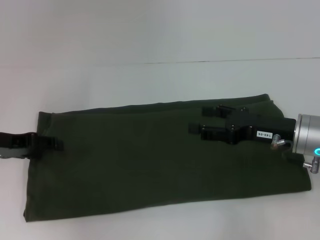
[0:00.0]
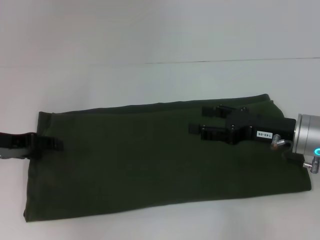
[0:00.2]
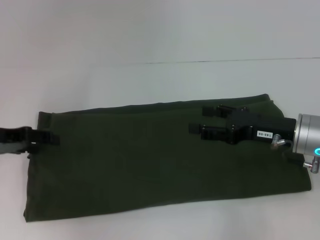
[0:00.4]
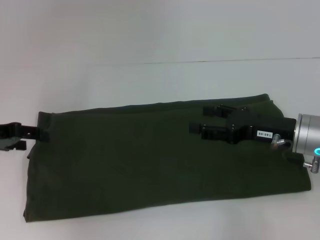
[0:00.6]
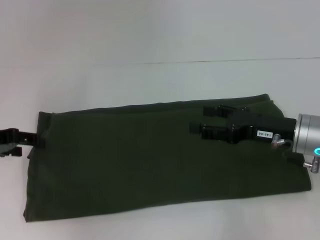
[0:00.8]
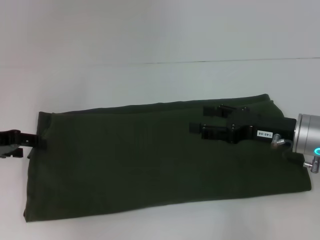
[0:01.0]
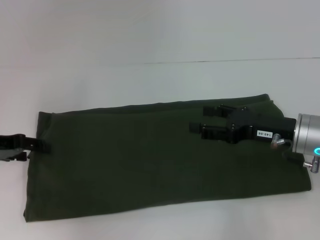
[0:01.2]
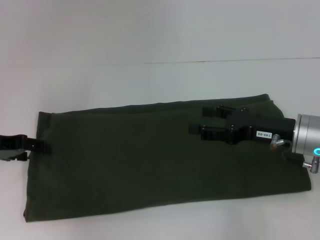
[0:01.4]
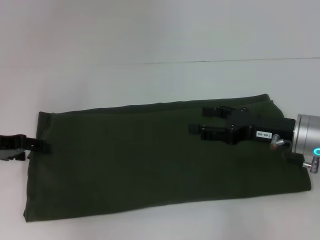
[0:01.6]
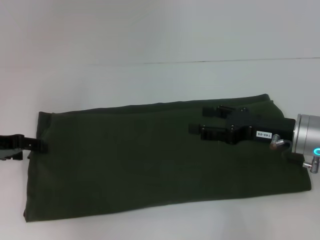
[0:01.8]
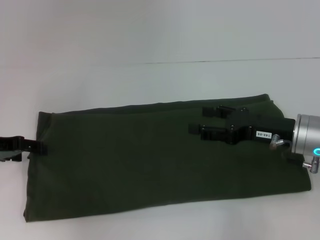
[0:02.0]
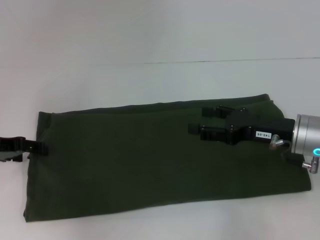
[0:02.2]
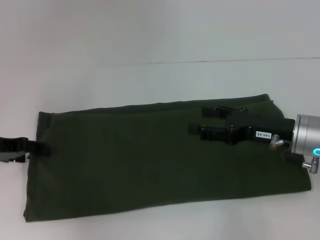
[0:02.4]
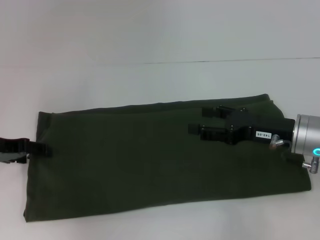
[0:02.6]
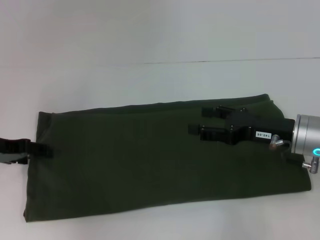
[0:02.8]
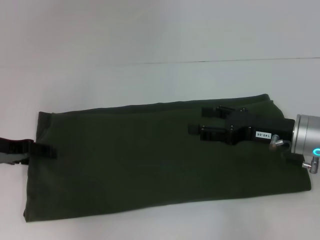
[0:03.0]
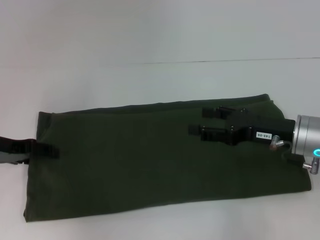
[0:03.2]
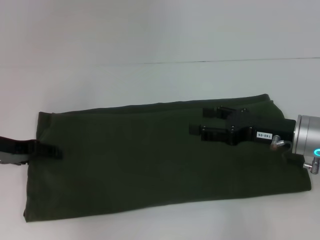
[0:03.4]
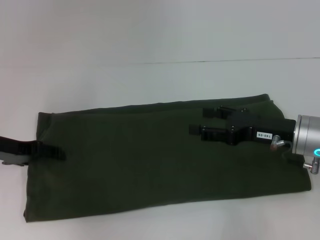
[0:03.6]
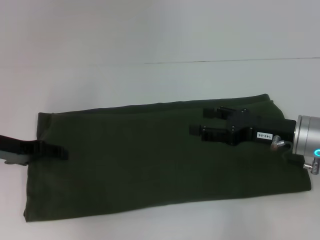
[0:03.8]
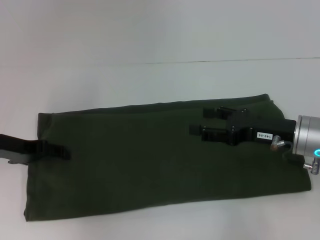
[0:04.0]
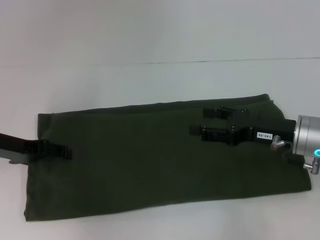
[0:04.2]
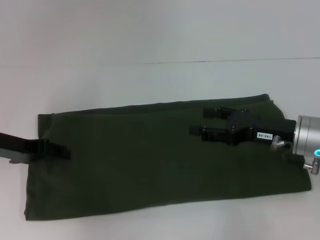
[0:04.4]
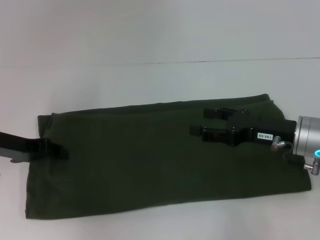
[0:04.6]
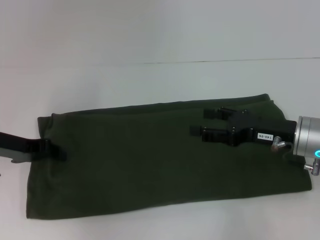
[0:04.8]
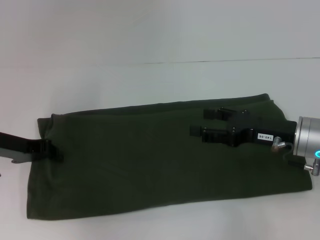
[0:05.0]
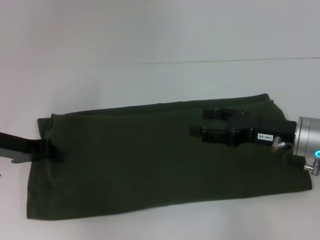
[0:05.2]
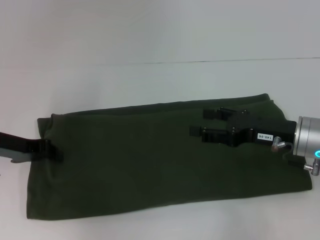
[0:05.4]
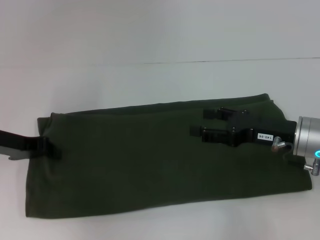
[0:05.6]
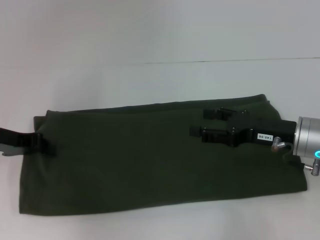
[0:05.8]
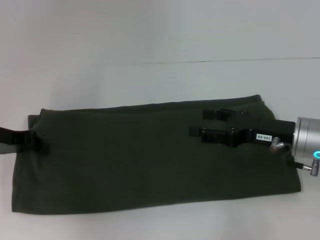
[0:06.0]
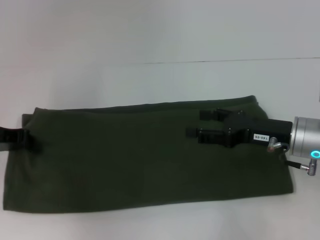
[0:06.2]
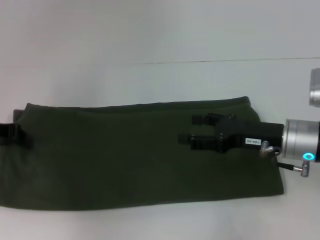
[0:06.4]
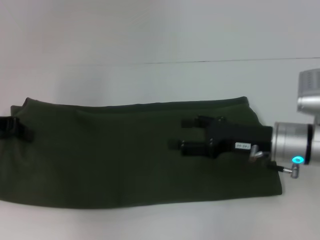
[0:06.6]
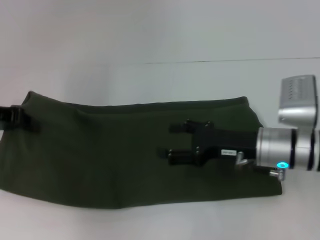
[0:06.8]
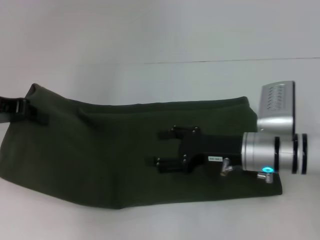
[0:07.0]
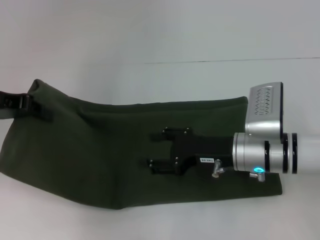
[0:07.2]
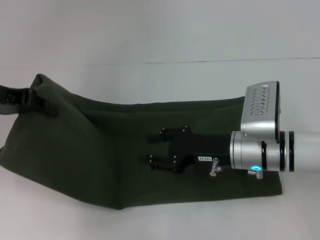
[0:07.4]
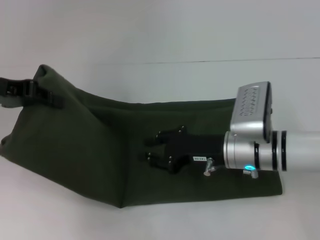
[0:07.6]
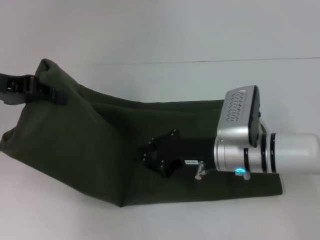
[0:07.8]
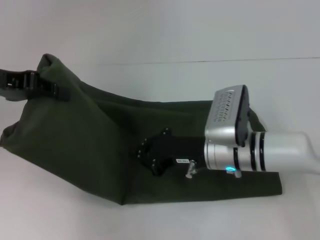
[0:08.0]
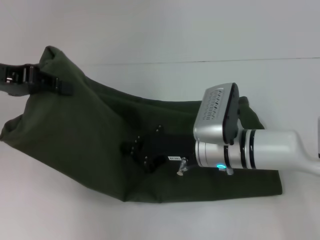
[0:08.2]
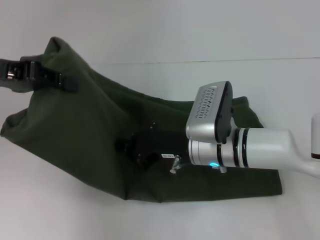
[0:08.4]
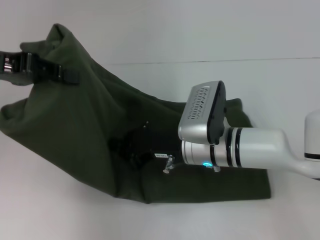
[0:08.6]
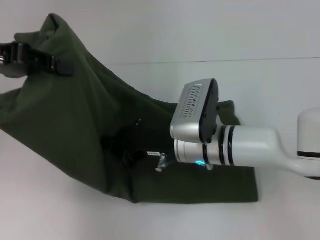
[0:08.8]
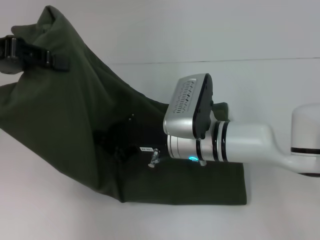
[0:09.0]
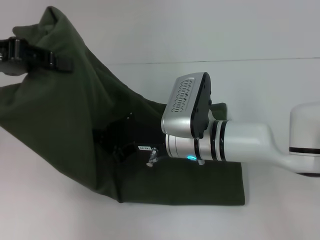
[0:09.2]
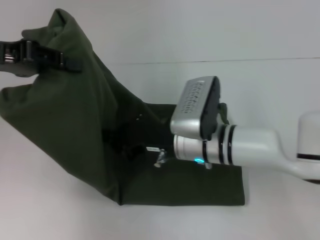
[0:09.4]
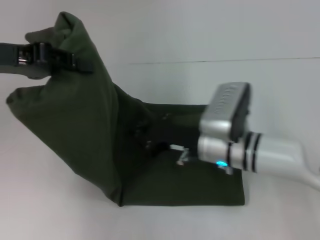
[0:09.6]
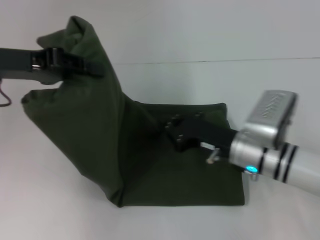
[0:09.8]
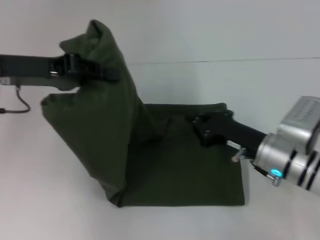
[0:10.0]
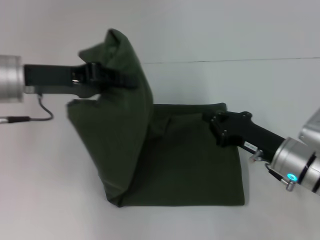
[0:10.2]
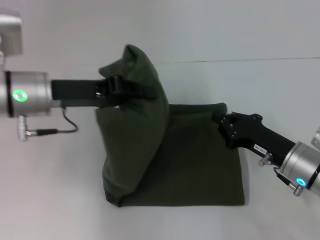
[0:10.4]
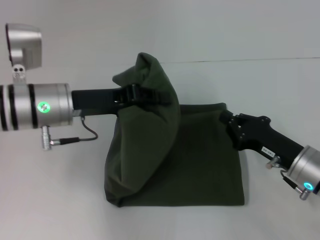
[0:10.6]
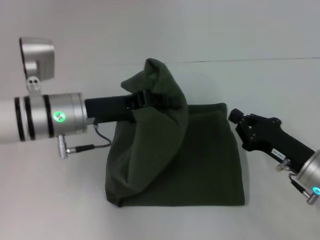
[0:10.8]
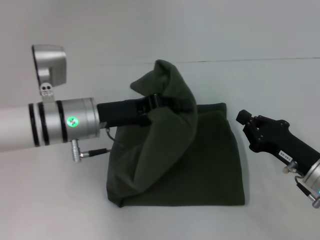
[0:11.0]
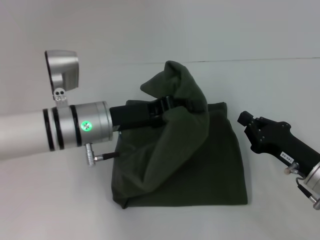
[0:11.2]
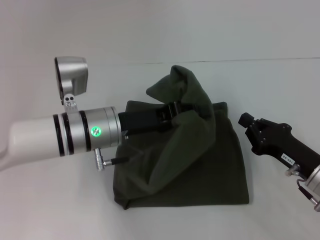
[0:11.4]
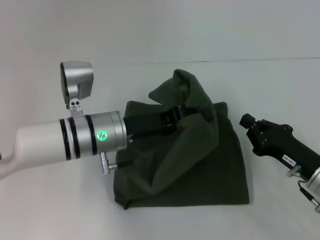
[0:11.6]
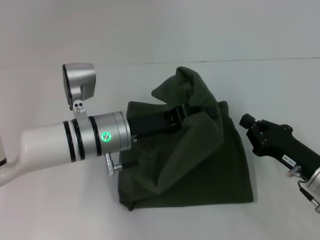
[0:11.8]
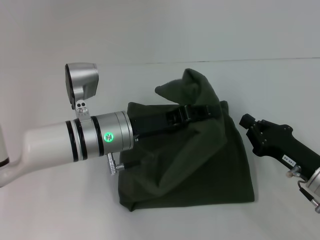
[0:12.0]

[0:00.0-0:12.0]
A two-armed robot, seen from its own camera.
0:01.6 to 0:03.0: Both grippers stay put.
0:03.0 to 0:04.4: The grippers move only a little.
0:04.4 to 0:06.0: The left gripper closes its fingers.
0:06.0 to 0:07.6: The right gripper is displaced to the left by about 10 cm. Meanwhile the left gripper shifts approximately 10 cm upward.
0:07.6 to 0:09.0: The right gripper is displaced to the left by approximately 10 cm, and closes its fingers; the left gripper travels upward by approximately 5 cm.
0:09.0 to 0:10.4: The right gripper moves to the right, about 15 cm. The left gripper is displaced to the right and downward by about 15 cm.
0:10.4 to 0:12.0: The left gripper goes about 10 cm to the right and downward.

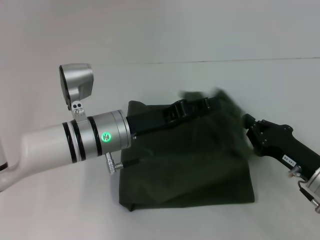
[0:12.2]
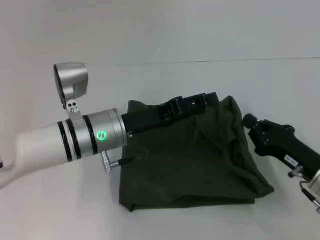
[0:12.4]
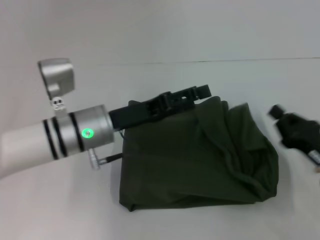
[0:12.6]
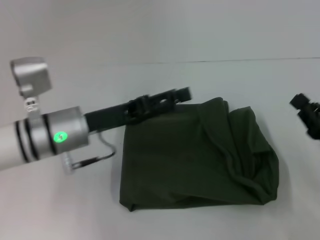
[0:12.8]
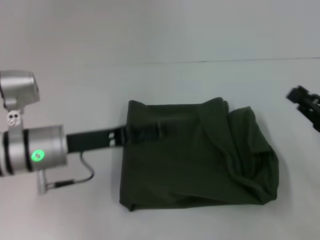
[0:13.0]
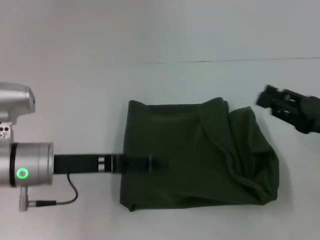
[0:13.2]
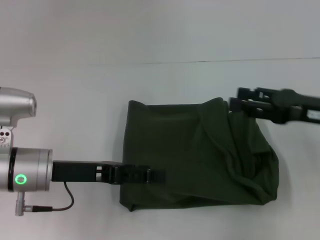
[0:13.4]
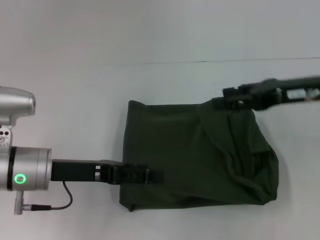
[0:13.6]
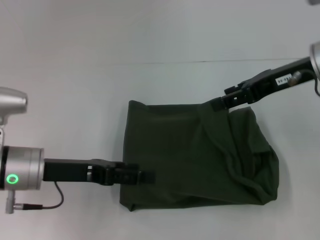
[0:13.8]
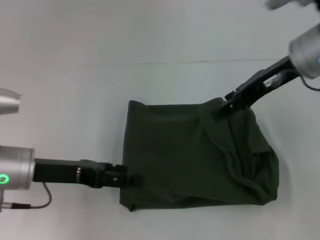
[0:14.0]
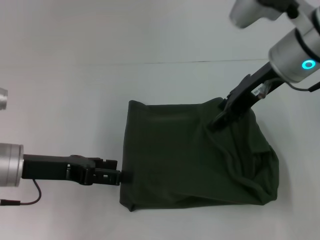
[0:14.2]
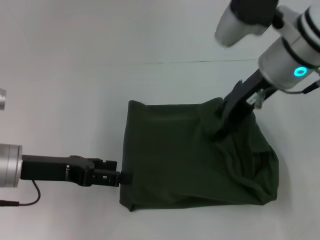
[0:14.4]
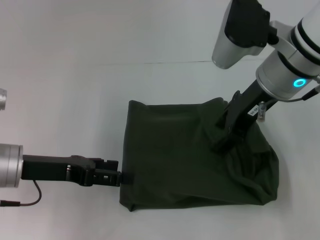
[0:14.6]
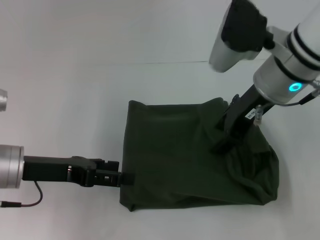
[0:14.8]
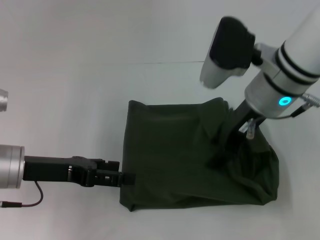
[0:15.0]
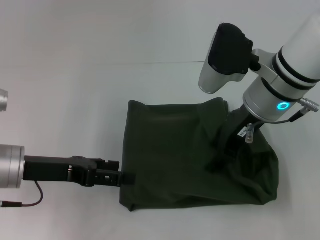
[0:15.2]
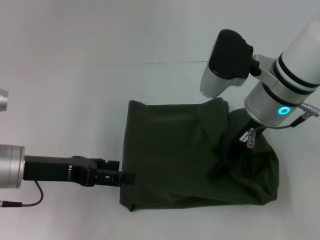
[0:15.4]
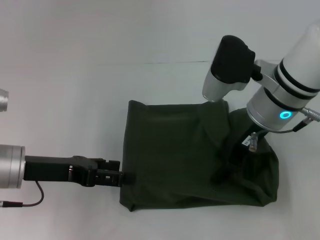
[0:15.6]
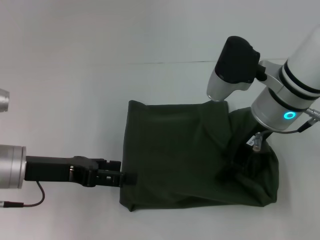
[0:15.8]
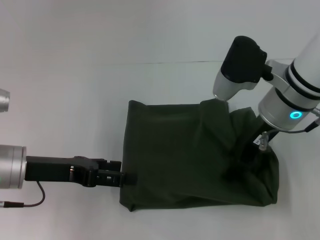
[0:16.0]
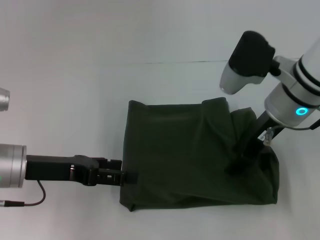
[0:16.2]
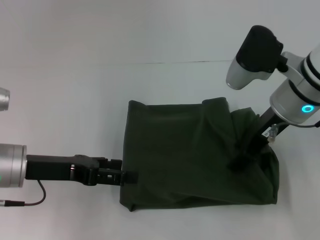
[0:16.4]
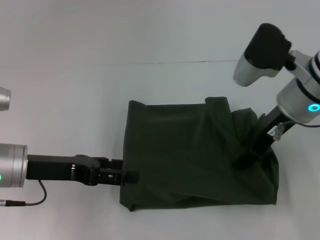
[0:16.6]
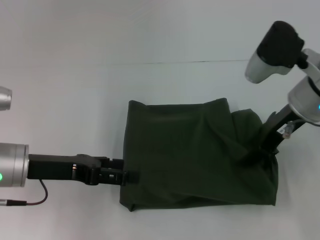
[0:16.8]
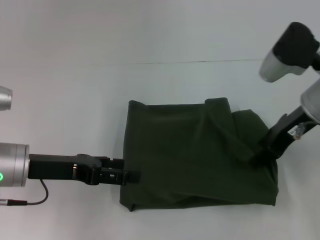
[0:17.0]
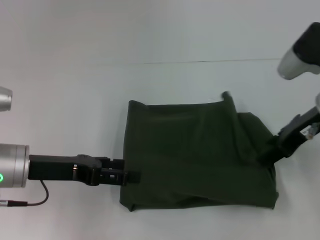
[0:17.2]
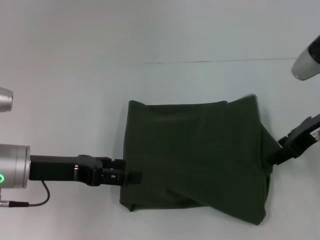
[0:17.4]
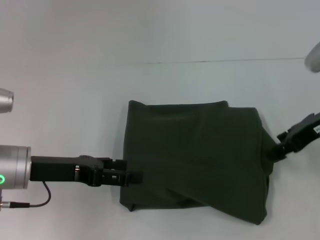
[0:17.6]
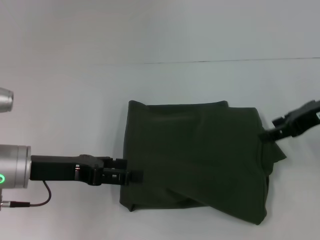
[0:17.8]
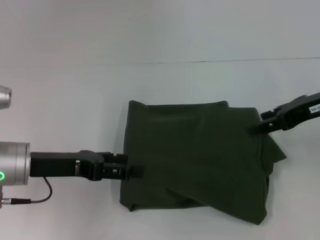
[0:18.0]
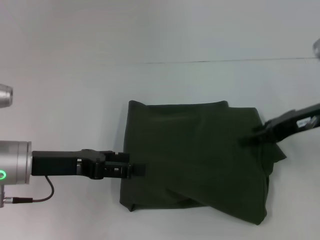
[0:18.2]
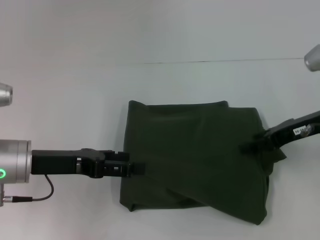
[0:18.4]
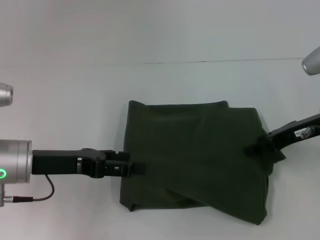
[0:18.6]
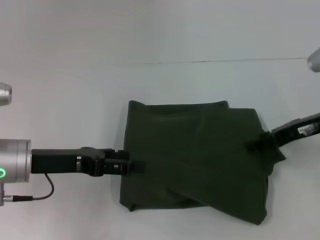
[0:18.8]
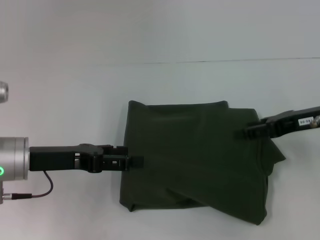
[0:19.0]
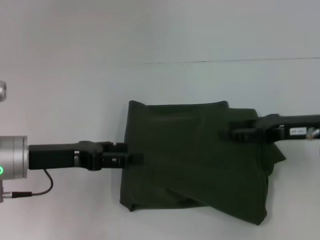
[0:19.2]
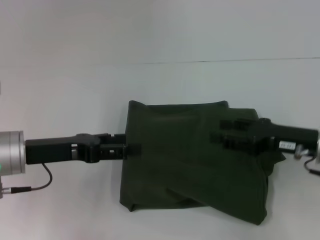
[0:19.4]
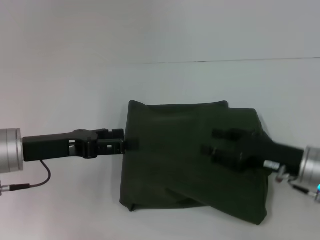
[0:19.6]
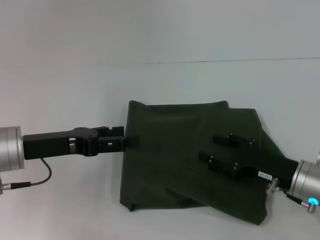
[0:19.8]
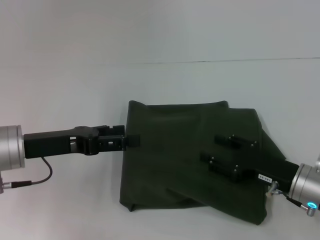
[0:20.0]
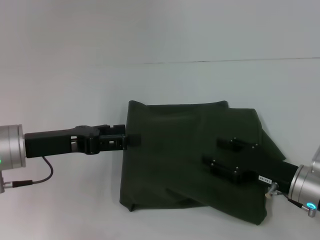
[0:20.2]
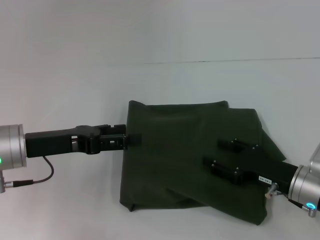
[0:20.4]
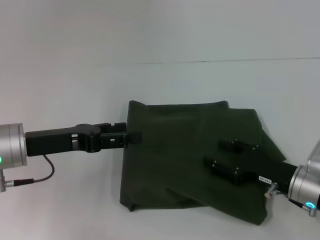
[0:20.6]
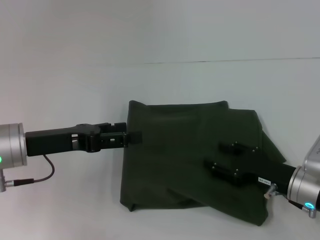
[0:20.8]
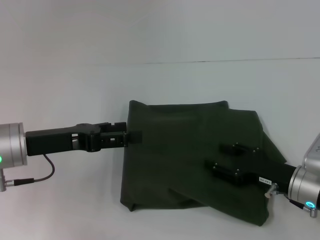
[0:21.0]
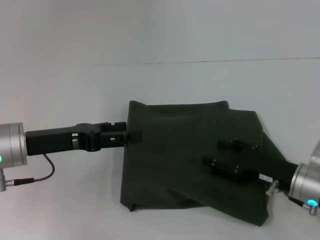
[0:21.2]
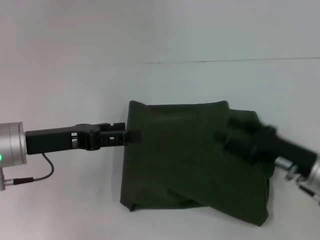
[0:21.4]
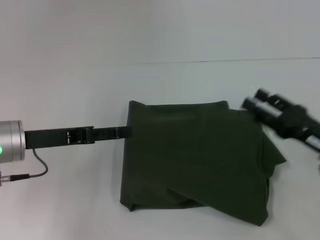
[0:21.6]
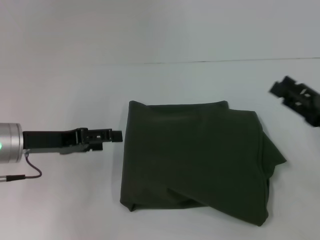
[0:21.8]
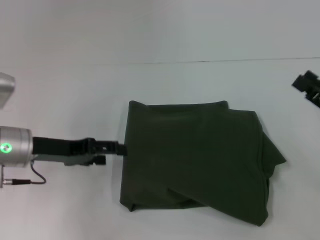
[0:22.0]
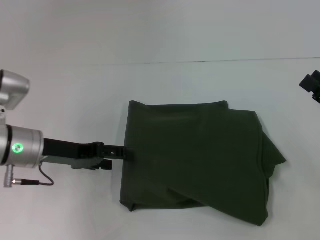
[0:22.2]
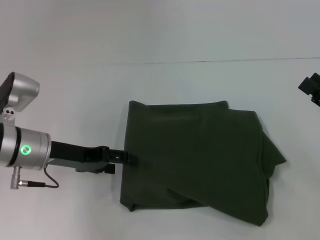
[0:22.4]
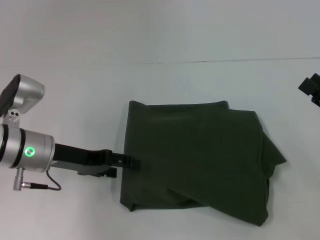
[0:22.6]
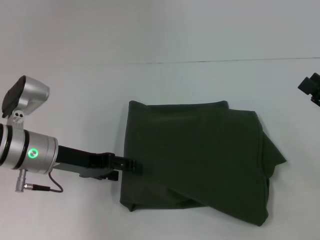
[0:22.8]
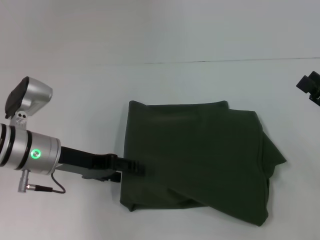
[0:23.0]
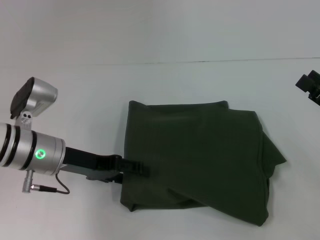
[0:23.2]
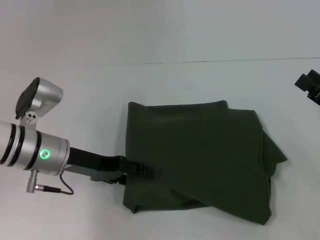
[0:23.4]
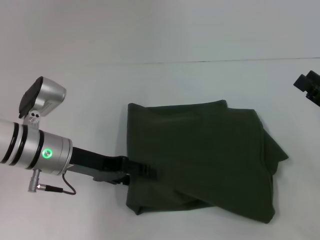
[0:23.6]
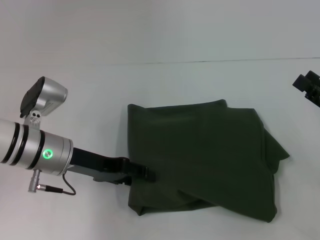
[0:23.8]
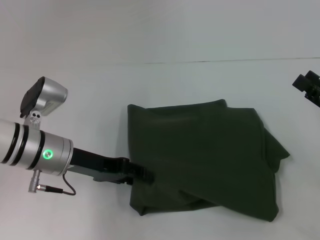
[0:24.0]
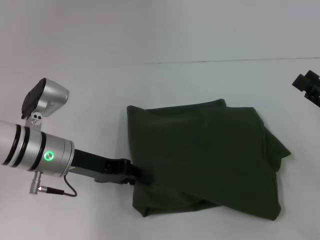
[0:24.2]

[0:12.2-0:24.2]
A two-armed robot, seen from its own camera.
0:12.2 to 0:13.8: The right gripper heads upward and forward, covering approximately 20 cm, and opens its fingers. Meanwhile the left gripper heads to the left, covering approximately 10 cm, and opens its fingers.
0:13.8 to 0:15.2: The right gripper moves to the left, some 10 cm.
0:15.2 to 0:16.6: The grippers make only small movements.
0:16.6 to 0:18.2: The right gripper is displaced to the right by approximately 10 cm.
0:18.2 to 0:19.8: The right gripper travels downward and backward by about 15 cm.
0:19.8 to 0:21.2: There are only small adjustments of the grippers.
0:21.2 to 0:22.6: The right gripper goes approximately 10 cm to the right and upward.
0:22.6 to 0:24.2: The grippers make only small movements.
